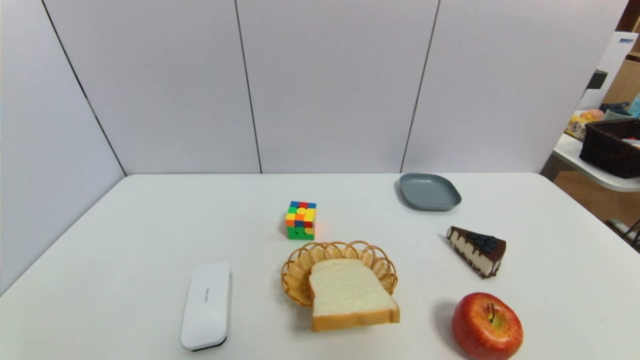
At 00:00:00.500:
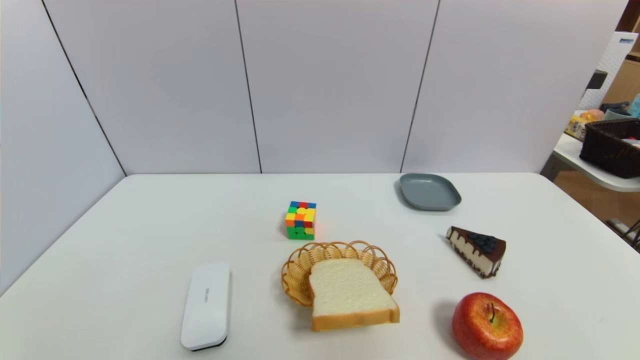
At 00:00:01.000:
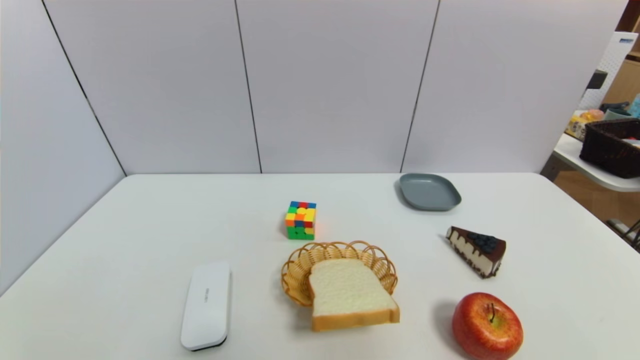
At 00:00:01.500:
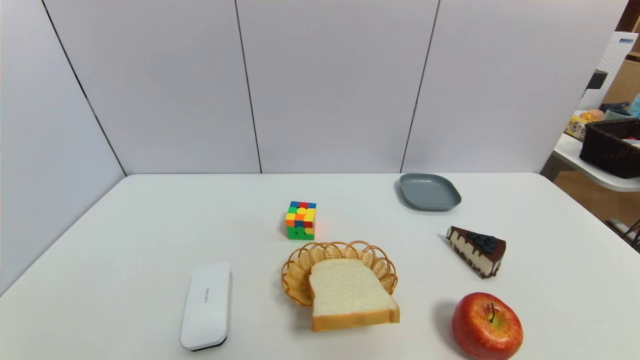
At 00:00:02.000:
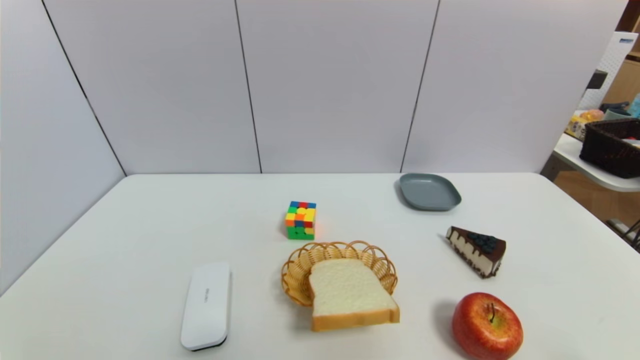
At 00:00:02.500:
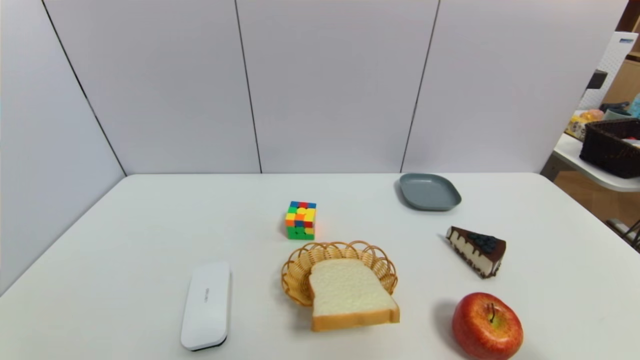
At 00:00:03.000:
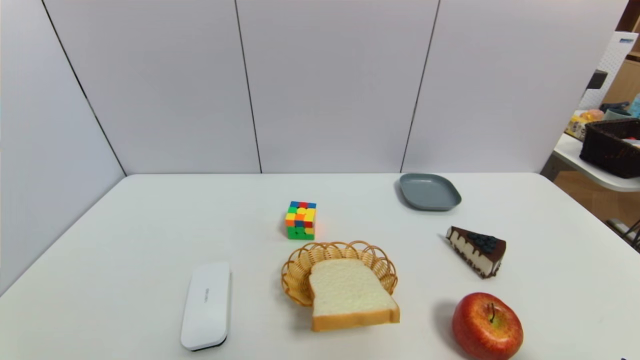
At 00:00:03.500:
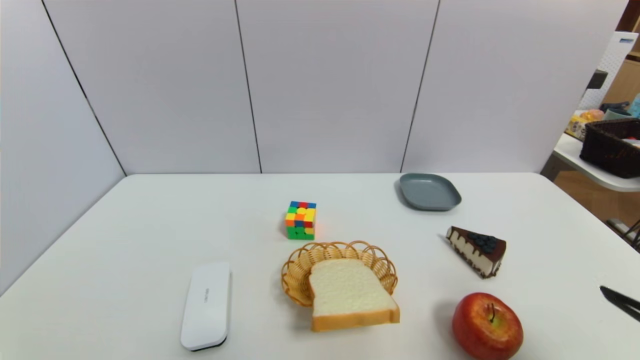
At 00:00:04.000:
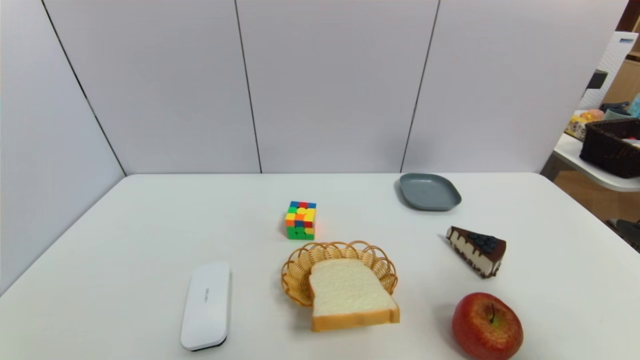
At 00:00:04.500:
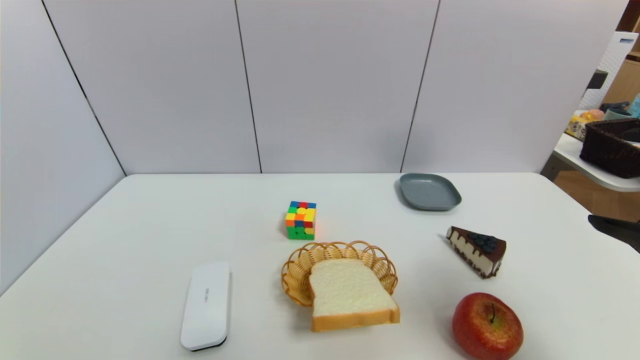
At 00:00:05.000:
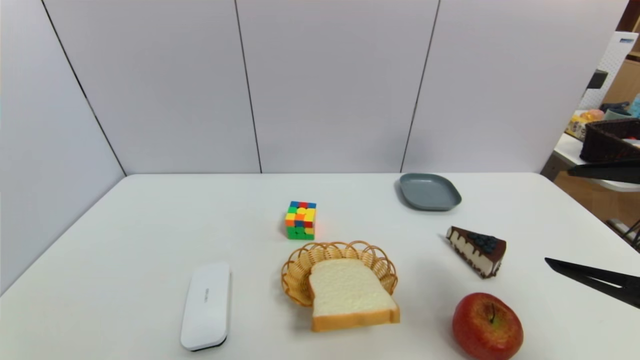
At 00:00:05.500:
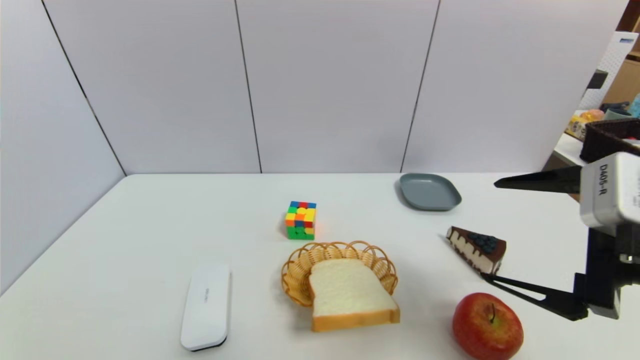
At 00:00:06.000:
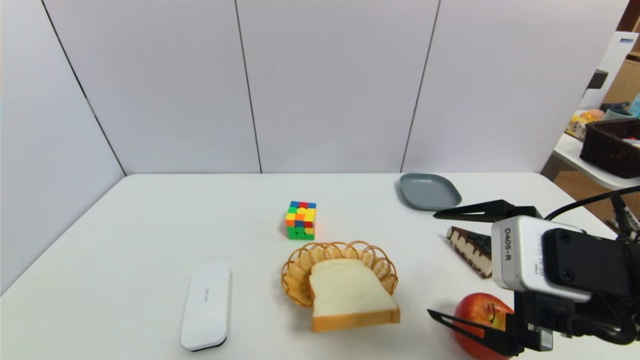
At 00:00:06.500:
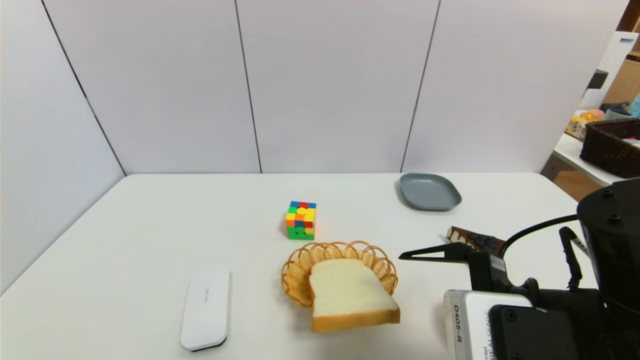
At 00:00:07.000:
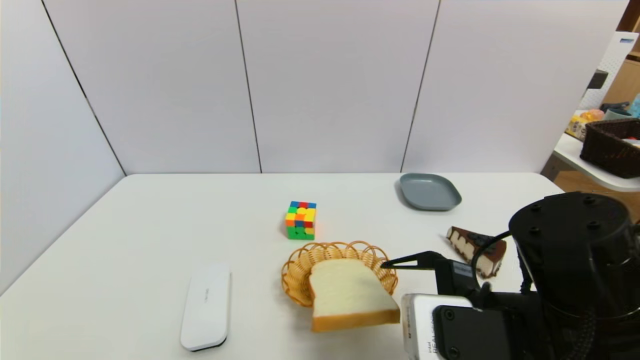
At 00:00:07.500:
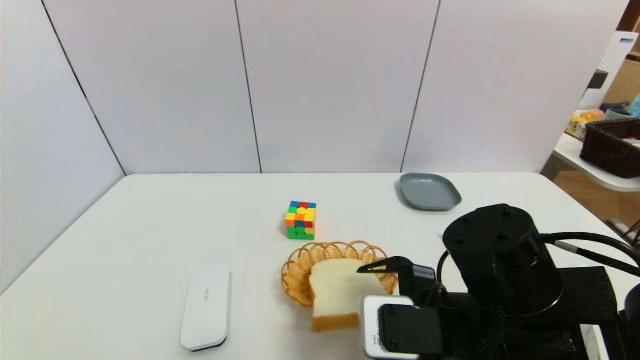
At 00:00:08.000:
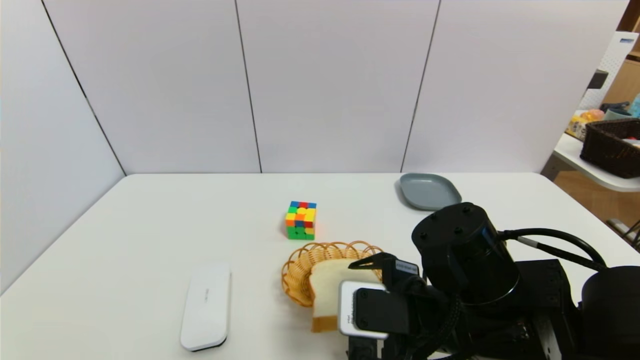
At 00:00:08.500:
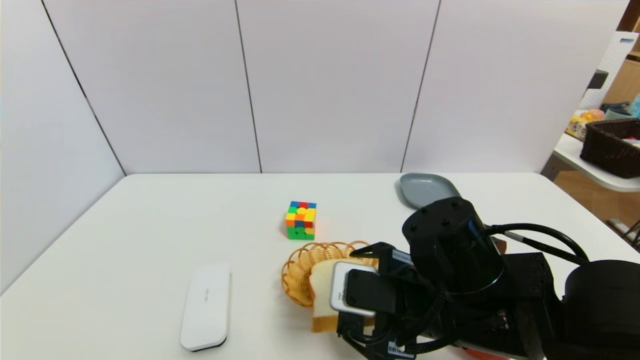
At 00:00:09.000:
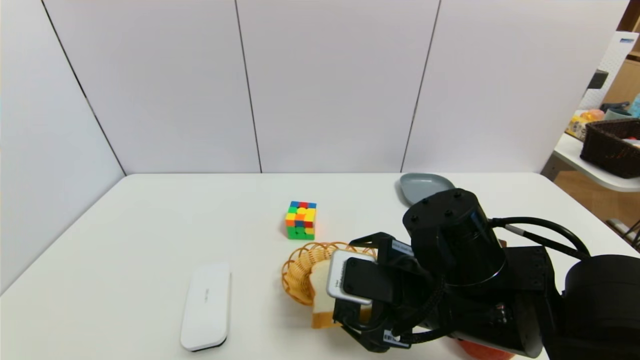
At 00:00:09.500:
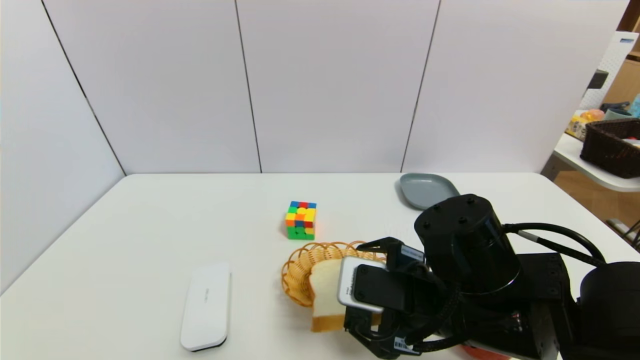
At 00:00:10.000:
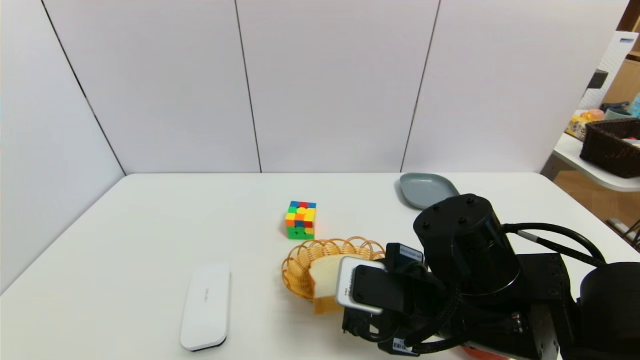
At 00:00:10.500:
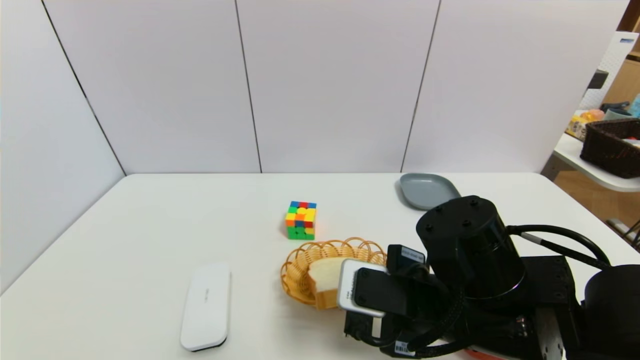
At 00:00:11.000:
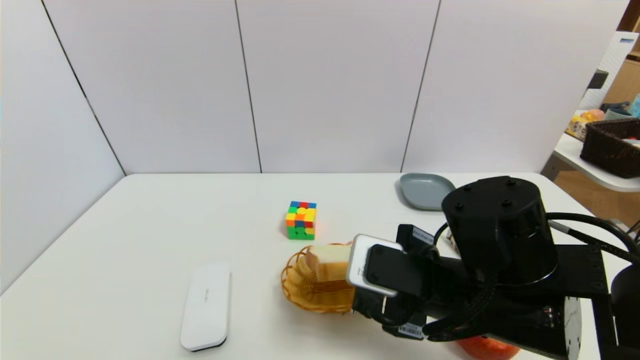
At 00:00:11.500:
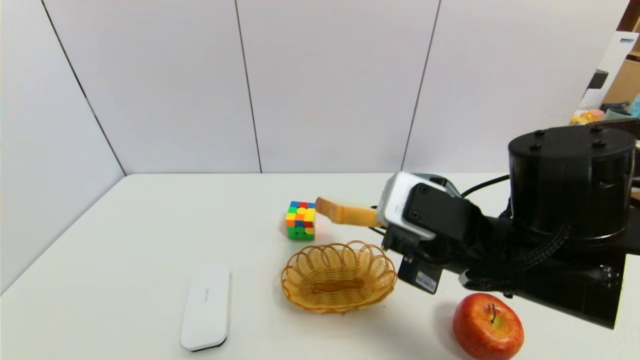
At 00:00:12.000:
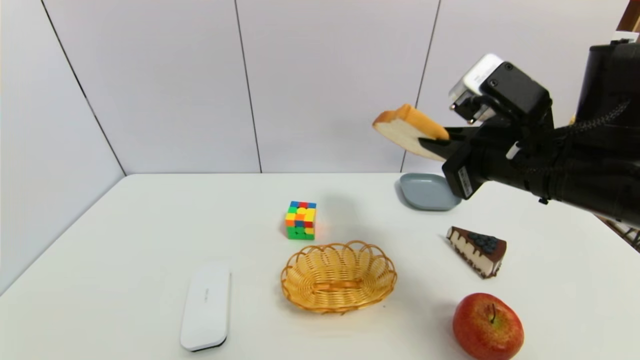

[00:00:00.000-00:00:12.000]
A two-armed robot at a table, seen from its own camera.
Task of the whole recording: use a gripper to pick the target object and place on the dish.
Step, 00:00:00.000 to 00:00:10.500: Grasp the bread slice with the right gripper.
00:00:02.000 to 00:00:04.000: The right gripper moves upward and forward, roughly 15 cm.
00:00:04.000 to 00:00:06.000: The right gripper moves to the left and downward, some 15 cm.
00:00:06.000 to 00:00:08.000: The right gripper moves to the left and downward, roughly 10 cm.
00:00:08.000 to 00:00:10.000: The right gripper closes.
00:00:10.000 to 00:00:12.000: The right gripper travels upward, to the right and forward by approximately 15 cm, and closes.

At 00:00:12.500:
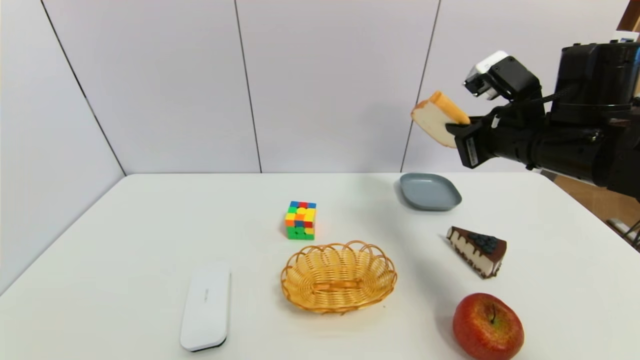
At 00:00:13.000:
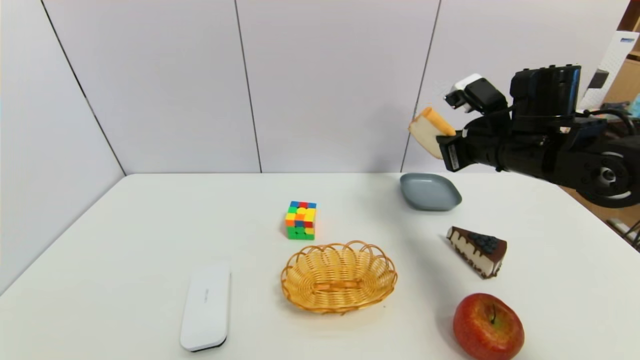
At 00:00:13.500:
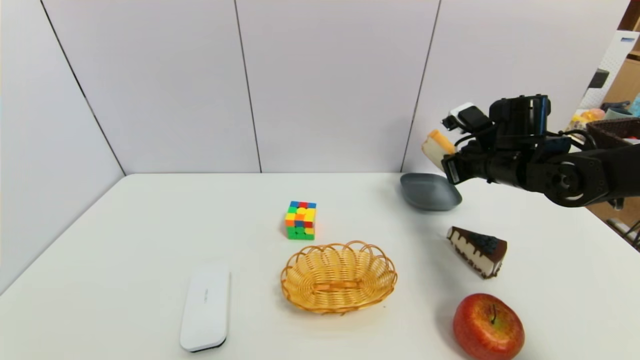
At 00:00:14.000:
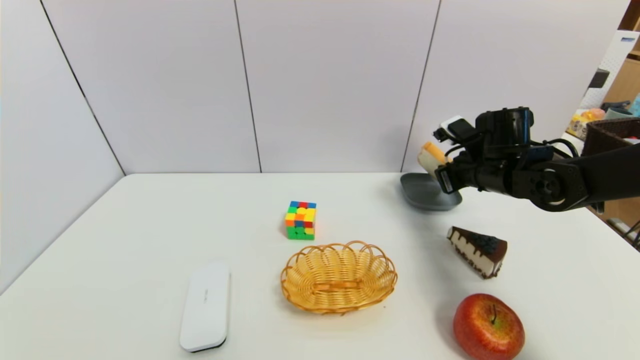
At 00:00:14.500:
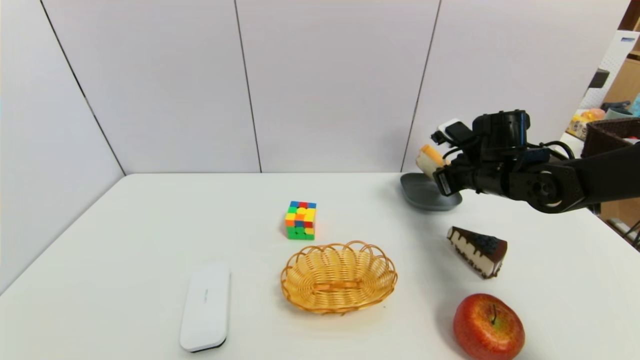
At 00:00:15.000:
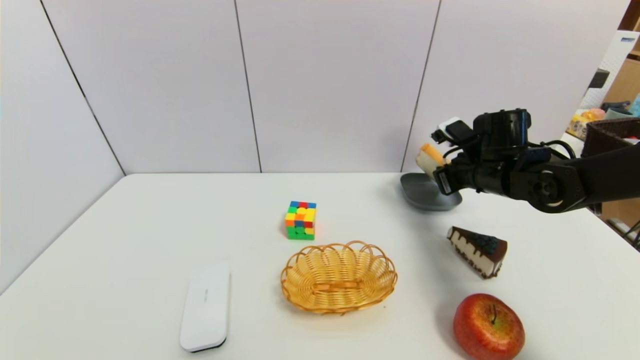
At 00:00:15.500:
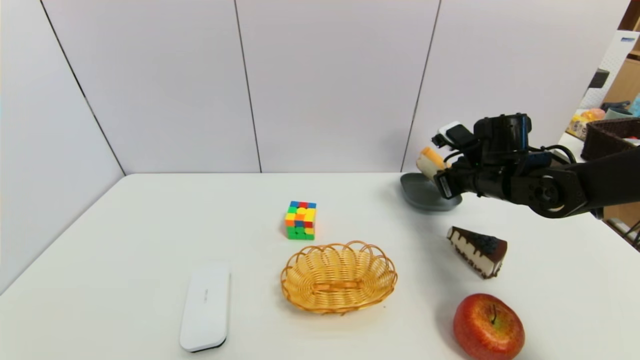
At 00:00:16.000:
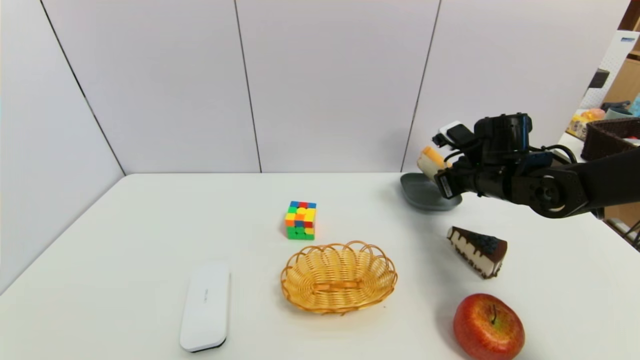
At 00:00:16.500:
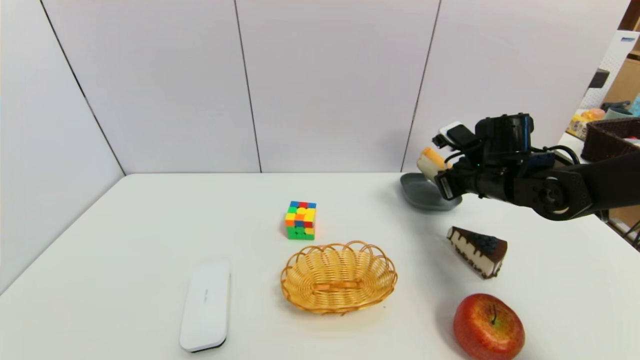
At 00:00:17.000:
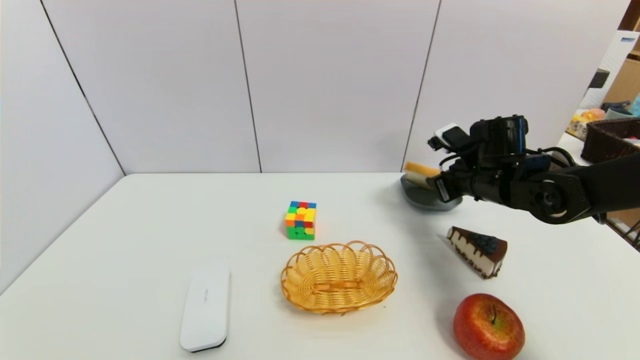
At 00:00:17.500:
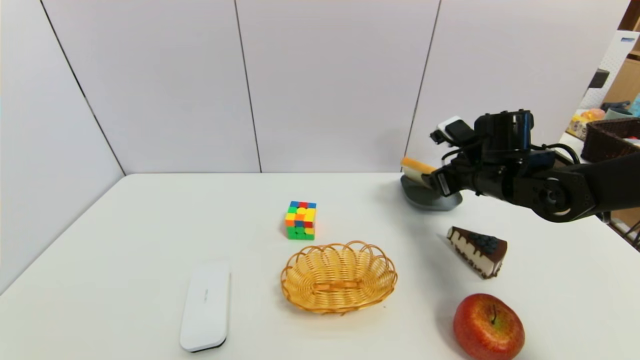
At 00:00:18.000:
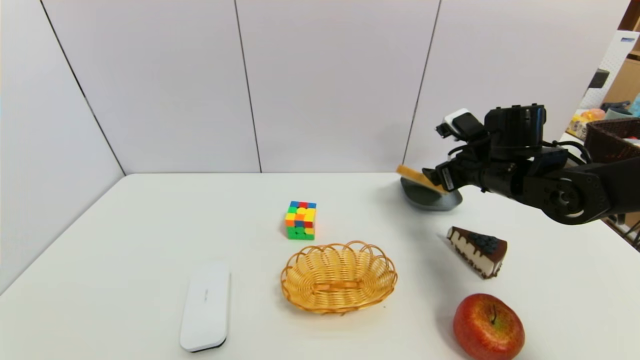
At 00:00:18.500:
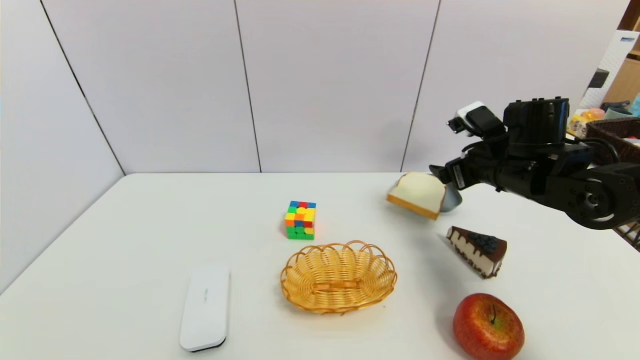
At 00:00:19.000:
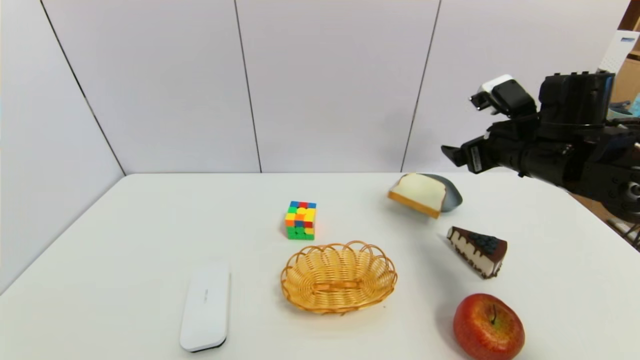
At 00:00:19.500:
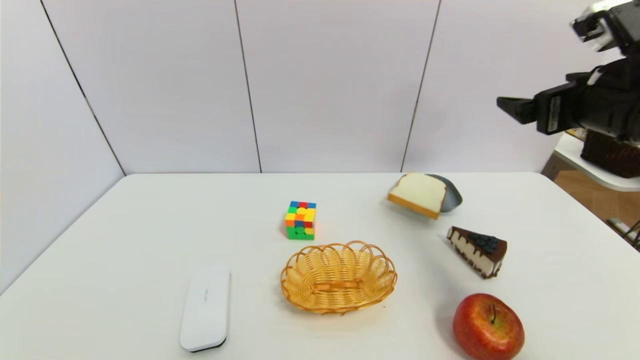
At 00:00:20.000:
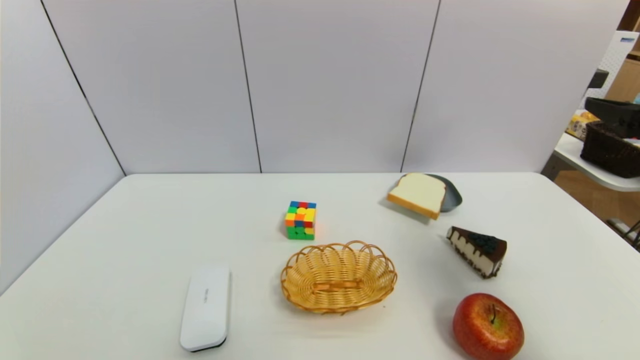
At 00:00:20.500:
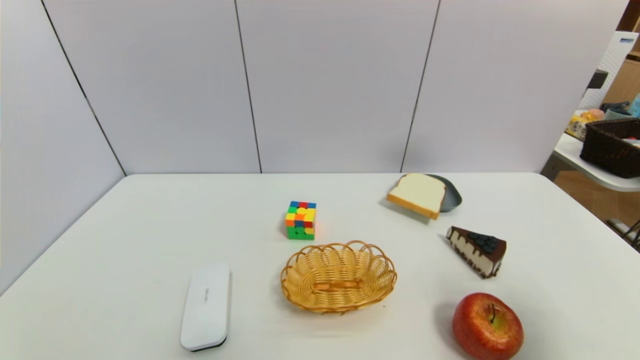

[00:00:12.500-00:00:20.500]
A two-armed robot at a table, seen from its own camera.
Task of the whole recording: use a gripper to pick the target object and place on the dish.
Step, 00:00:12.500 to 00:00:18.500: Place the bread slice on the dish with the right gripper.
00:00:12.500 to 00:00:14.500: The right gripper is displaced downward and forward by roughly 15 cm.
00:00:14.500 to 00:00:16.500: Both grippers stay about where they are.
00:00:16.500 to 00:00:18.500: The right gripper opens its fingers.
00:00:18.500 to 00:00:20.500: The right gripper heads backward, covering roughly 25 cm.
